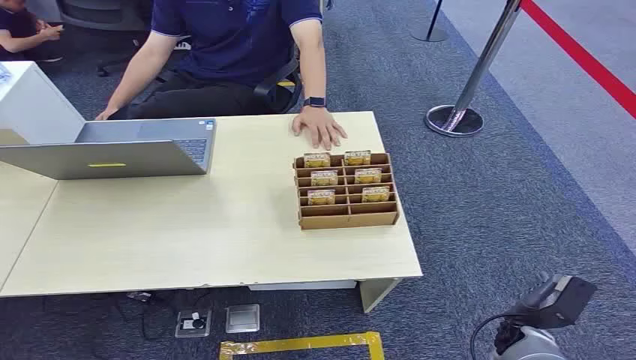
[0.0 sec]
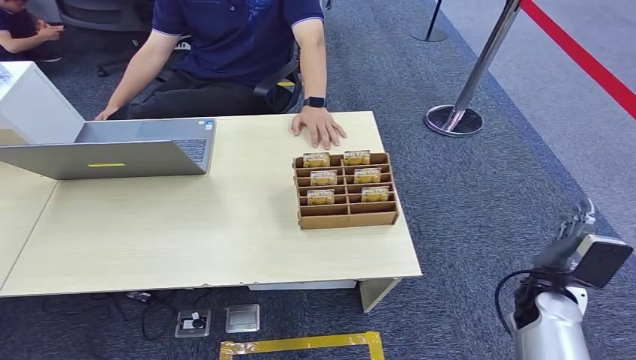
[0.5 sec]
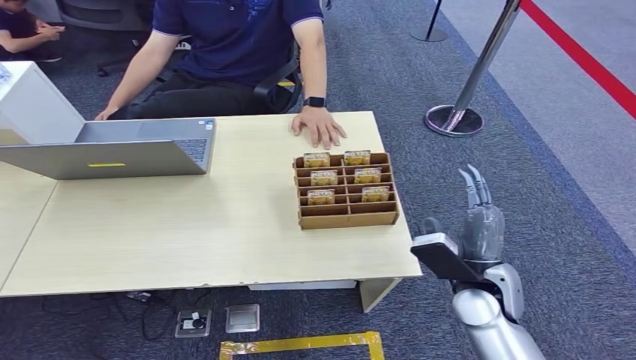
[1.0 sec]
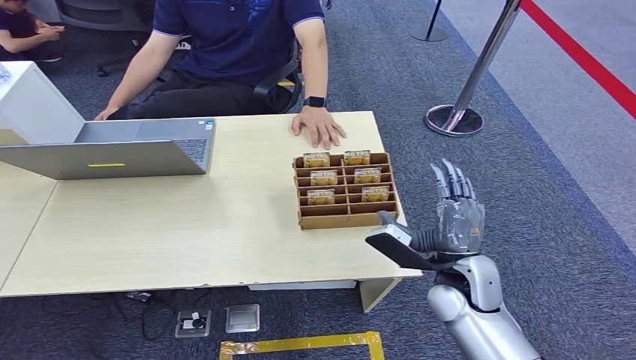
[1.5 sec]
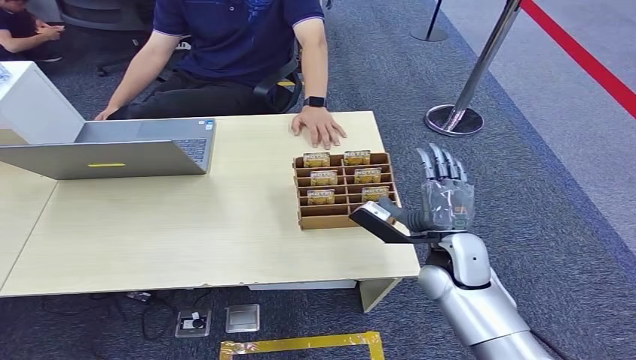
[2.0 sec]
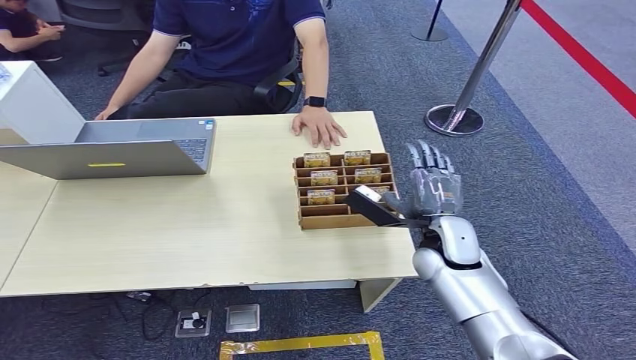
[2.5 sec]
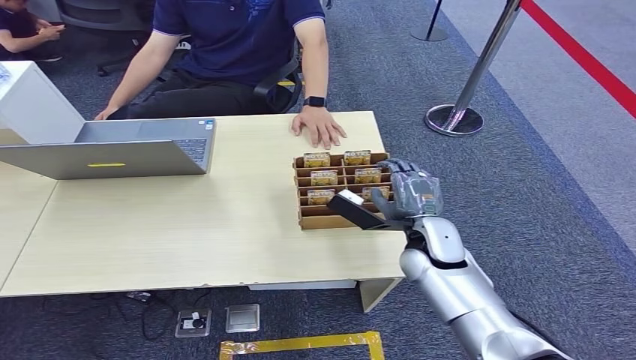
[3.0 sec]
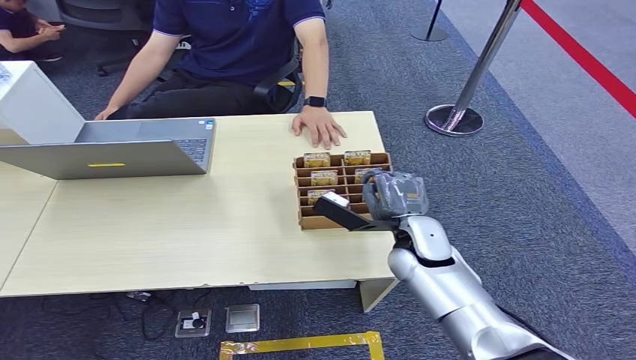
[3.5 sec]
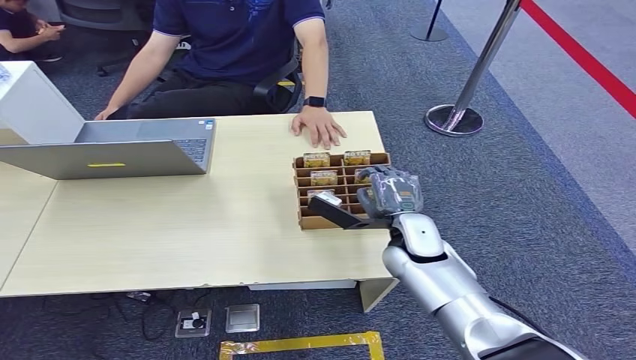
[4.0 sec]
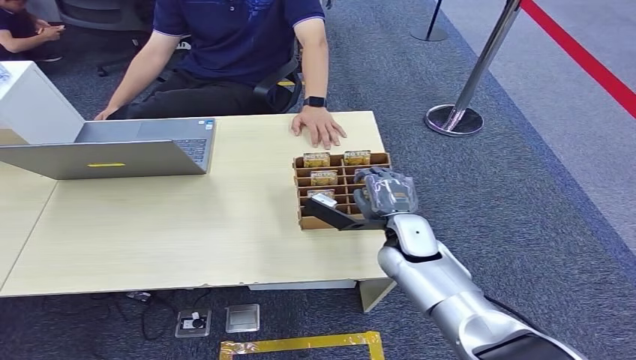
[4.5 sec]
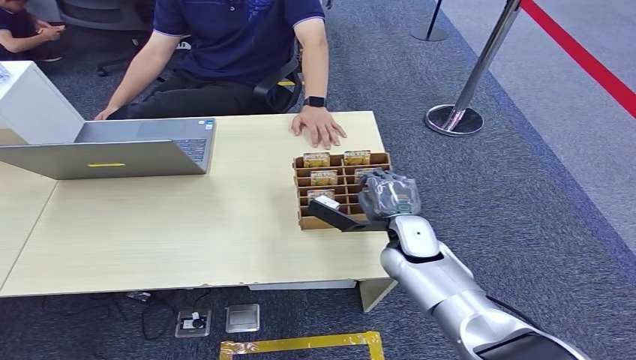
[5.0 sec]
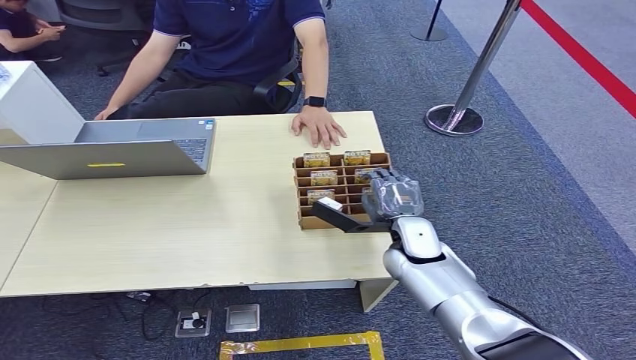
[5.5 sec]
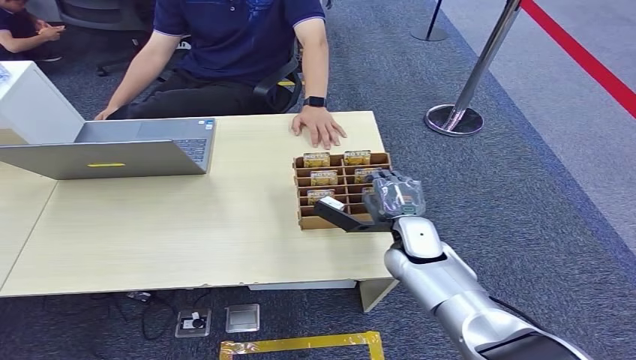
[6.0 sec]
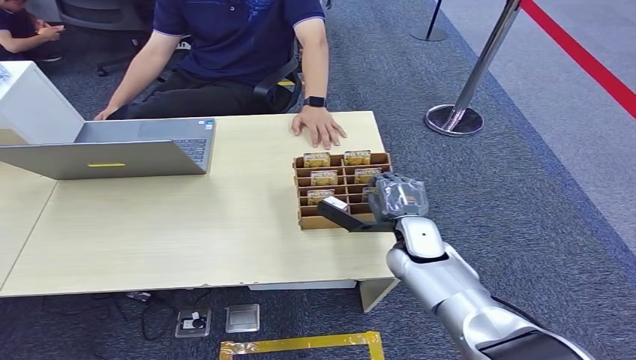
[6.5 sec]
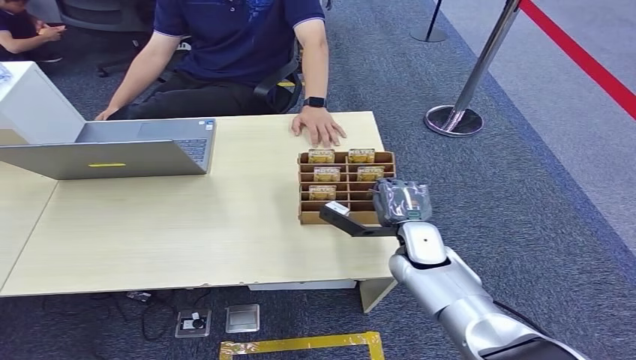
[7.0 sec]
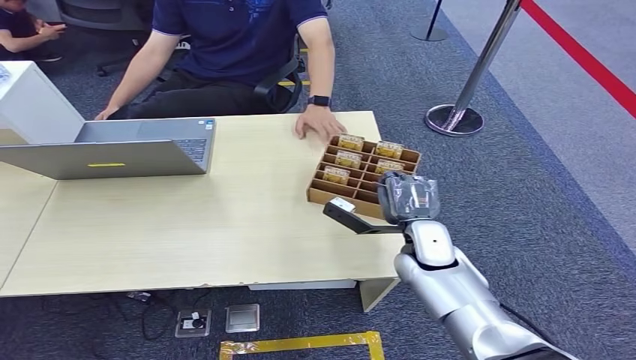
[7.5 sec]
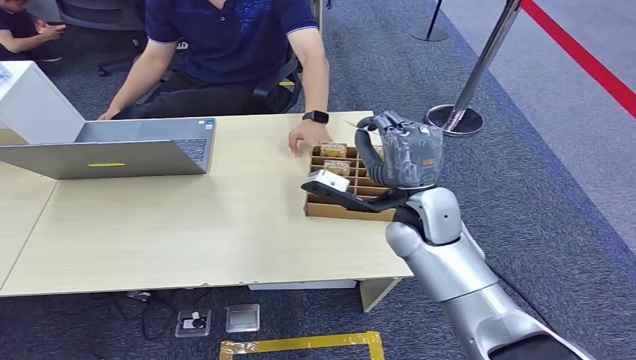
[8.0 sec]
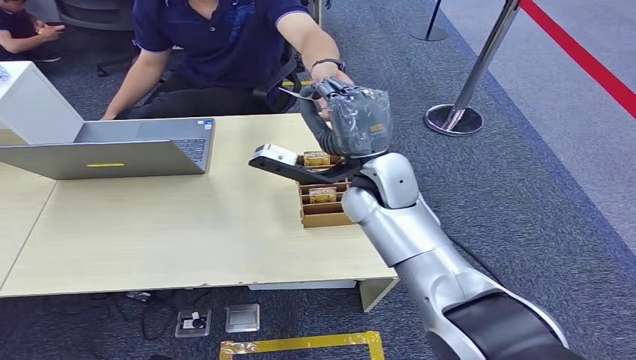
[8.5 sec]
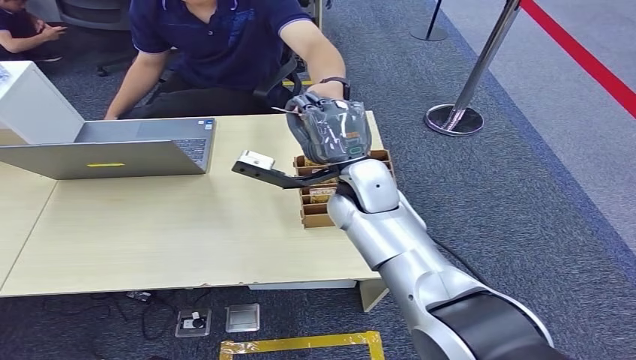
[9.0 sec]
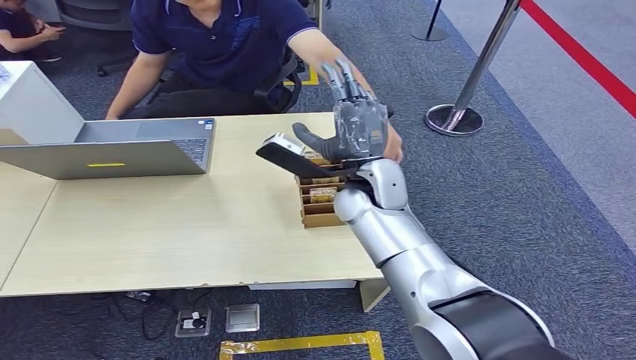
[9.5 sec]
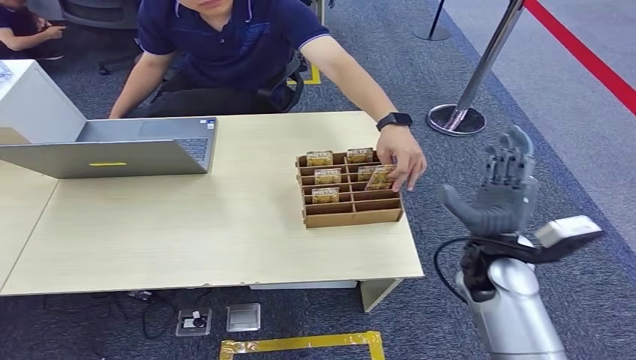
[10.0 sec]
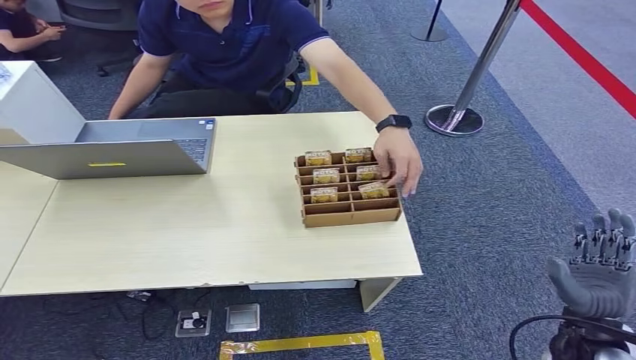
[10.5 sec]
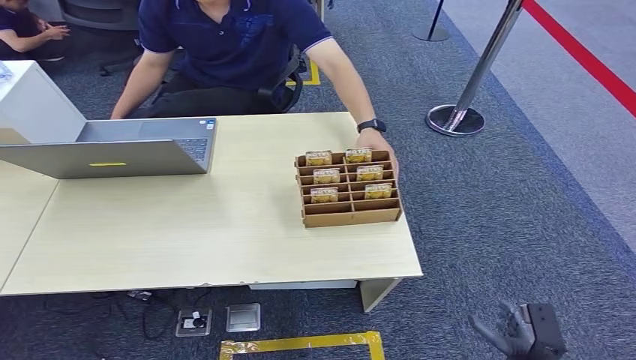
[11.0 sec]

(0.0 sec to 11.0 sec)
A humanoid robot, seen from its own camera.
Step, 0.0 sec - 7.5 sec: Pick up the room card from the card holder.
Step, 8.5 sec - 11.0 sec: Hand the room card to the target.
2.0 sec - 3.5 sec: The right hand changes place by approximately 5 cm.
3.5 sec - 7.5 sec: The hands make only small movements.
7.5 sec - 9.0 sec: The right hand shifts approximately 20 cm upward, to the left and forward.
9.0 sec - 11.0 sec: The right hand moves downward, backward and to the right, roughly 50 cm.
